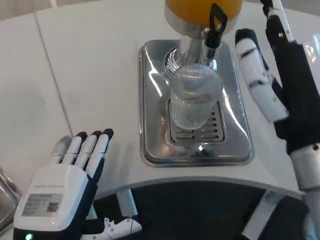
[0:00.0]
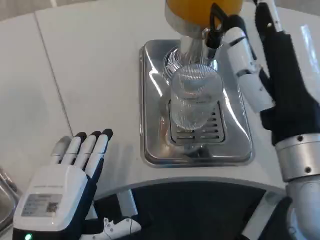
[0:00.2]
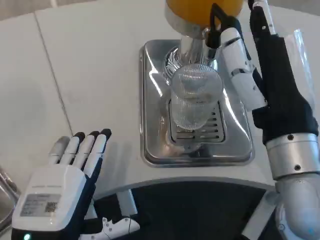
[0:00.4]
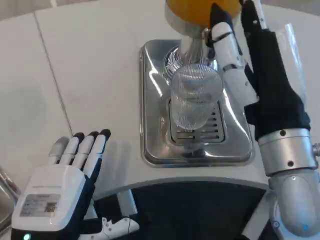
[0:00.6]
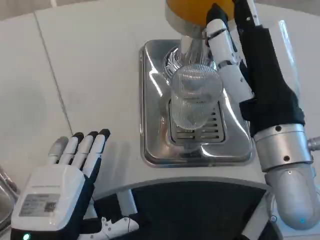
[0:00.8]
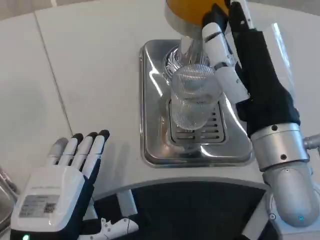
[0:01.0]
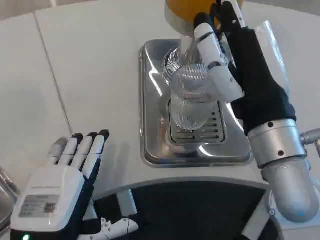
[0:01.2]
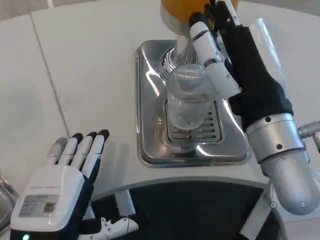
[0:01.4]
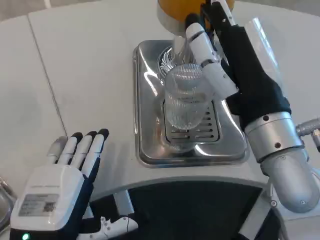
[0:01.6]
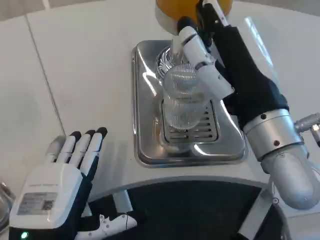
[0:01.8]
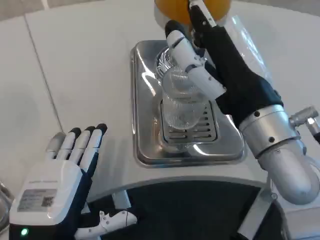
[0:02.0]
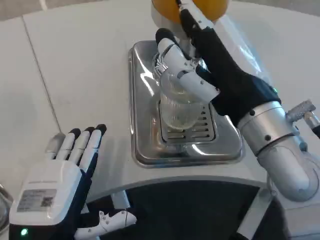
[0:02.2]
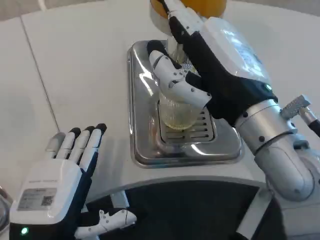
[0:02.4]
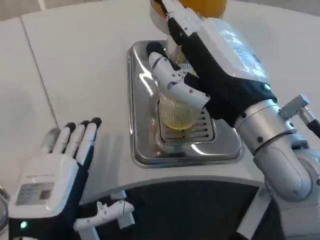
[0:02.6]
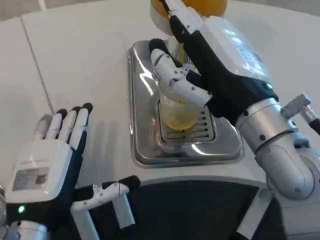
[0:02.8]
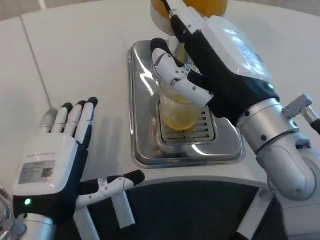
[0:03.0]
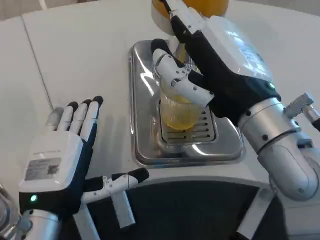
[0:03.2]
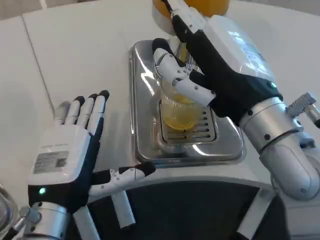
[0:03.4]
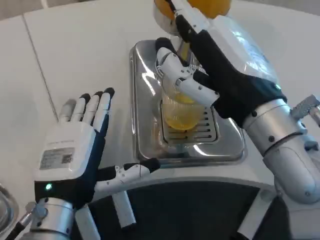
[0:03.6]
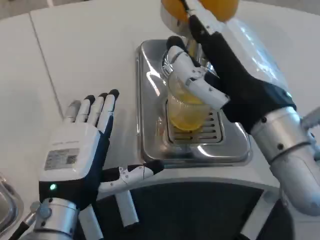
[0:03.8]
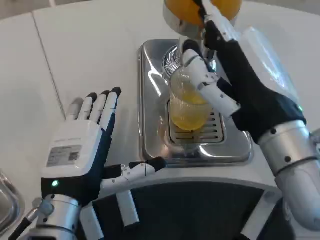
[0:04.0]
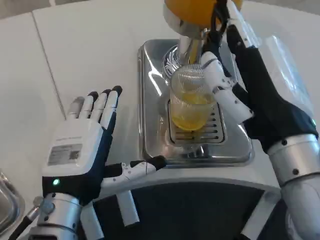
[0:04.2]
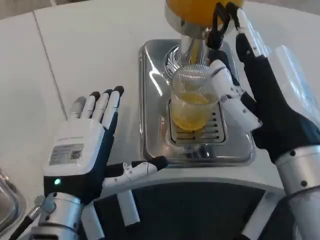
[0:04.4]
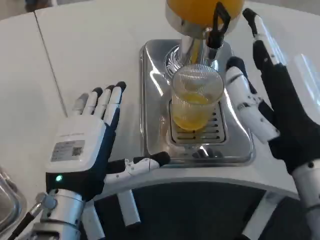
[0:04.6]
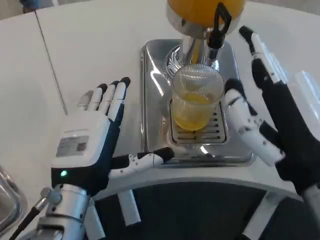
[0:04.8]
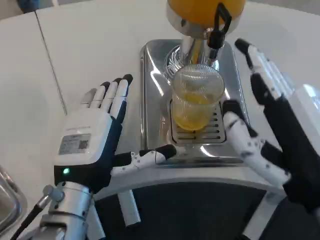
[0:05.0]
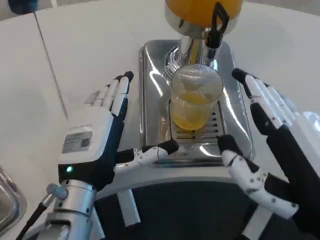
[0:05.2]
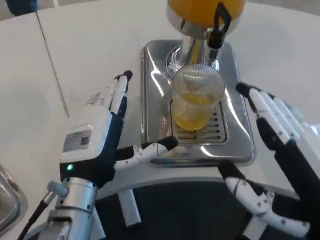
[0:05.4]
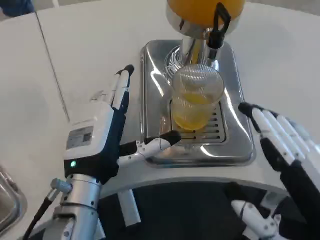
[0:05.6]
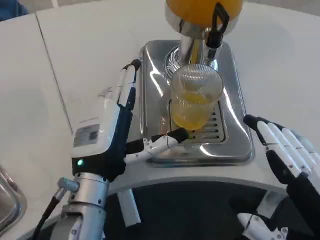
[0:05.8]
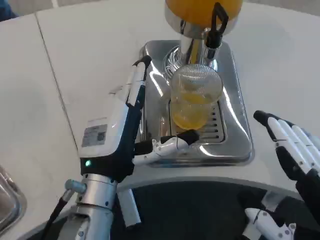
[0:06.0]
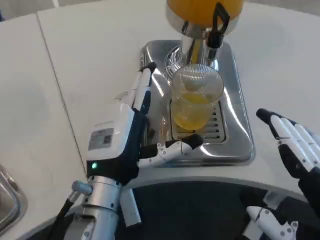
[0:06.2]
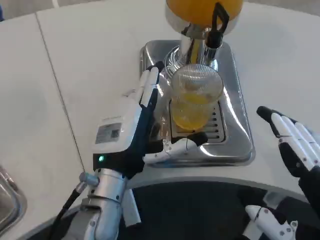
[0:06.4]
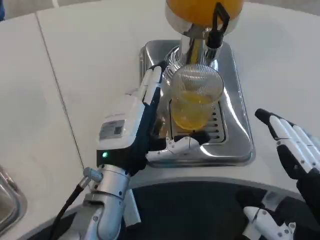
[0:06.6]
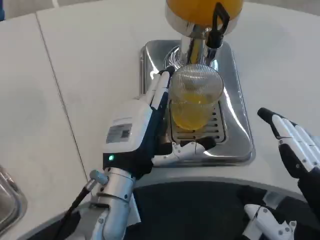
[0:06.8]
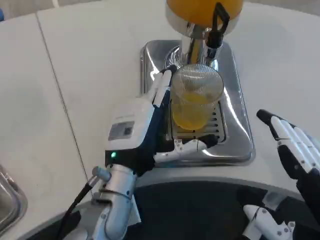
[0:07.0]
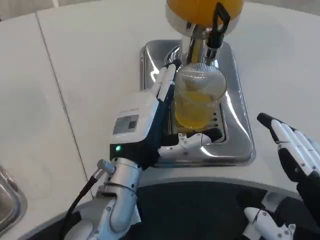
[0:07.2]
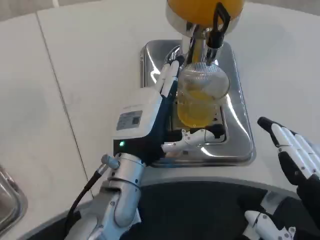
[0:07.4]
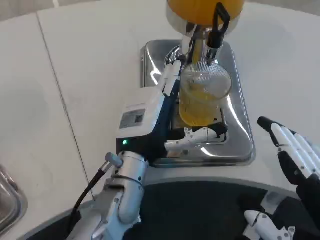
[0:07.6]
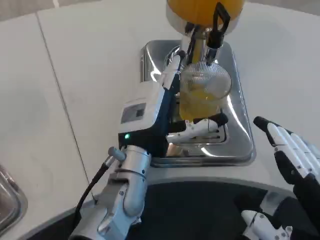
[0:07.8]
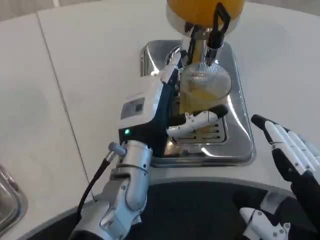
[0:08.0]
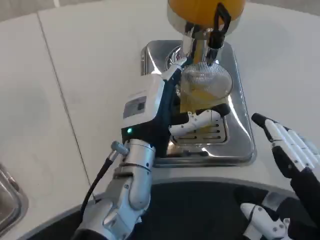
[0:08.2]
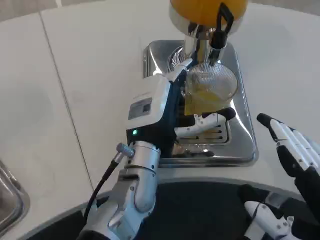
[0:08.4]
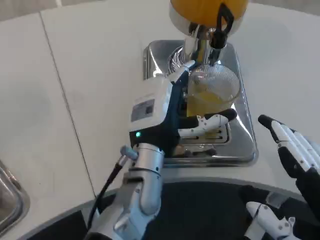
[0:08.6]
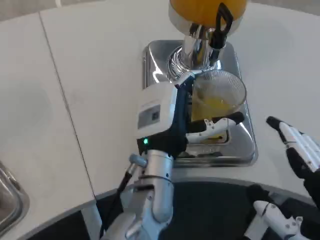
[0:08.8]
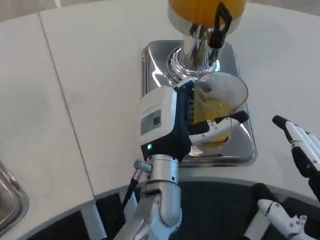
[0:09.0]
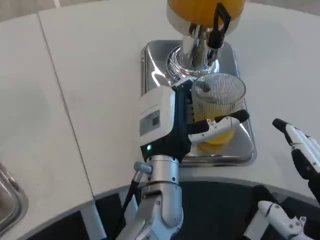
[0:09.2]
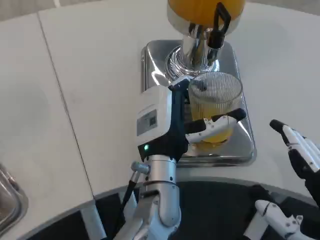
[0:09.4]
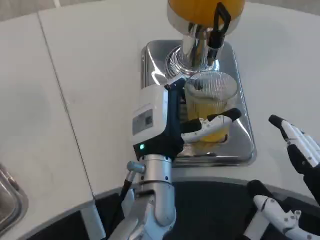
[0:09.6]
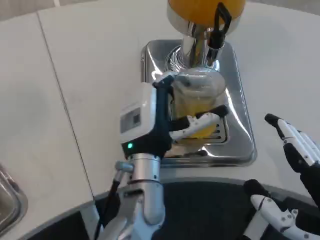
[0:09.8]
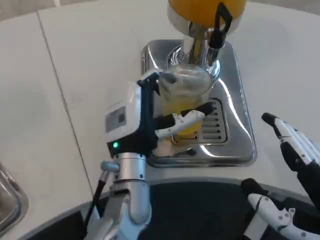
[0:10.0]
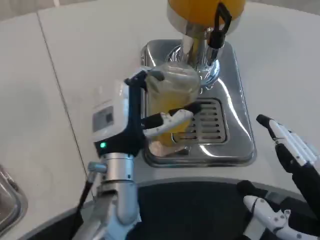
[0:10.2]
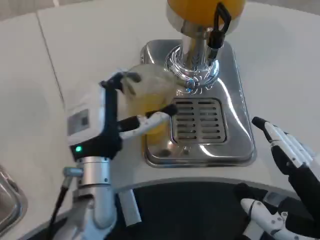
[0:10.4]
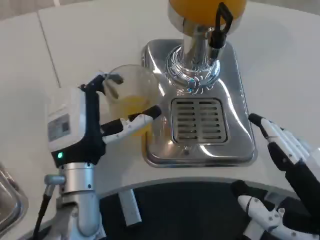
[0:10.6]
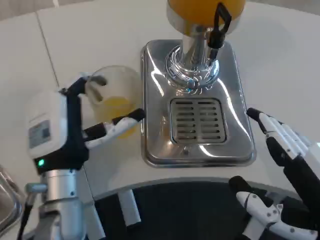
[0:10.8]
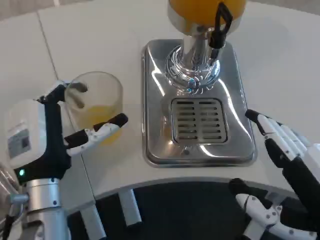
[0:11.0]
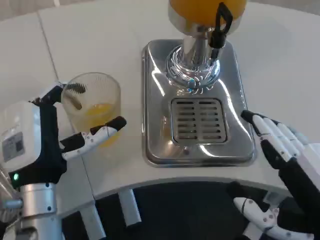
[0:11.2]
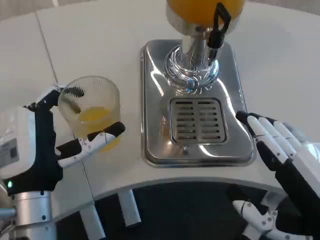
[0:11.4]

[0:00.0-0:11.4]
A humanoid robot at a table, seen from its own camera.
Task of the whole recording: Grasp the cup under the faucet to collect the drink, then remove the cup.
0:04.2 to 0:05.6: The right hand shifts some 10 cm backward and to the right.
0:05.6 to 0:07.2: The left hand moves some 5 cm.
0:10.0 to 0:11.4: The left hand is displaced to the left and backward by approximately 15 cm.

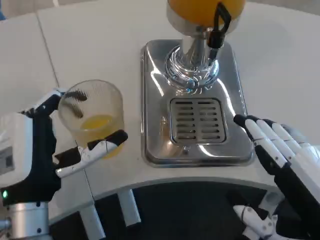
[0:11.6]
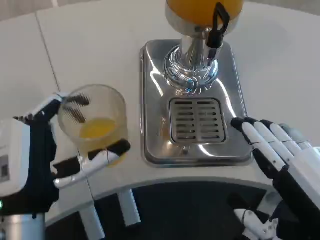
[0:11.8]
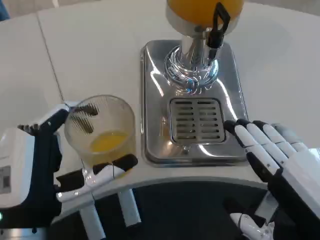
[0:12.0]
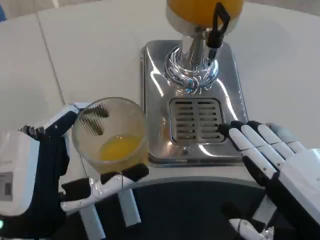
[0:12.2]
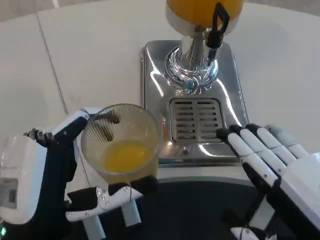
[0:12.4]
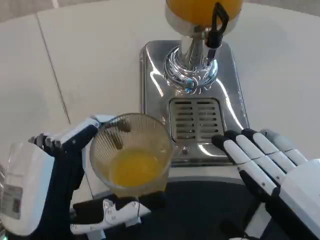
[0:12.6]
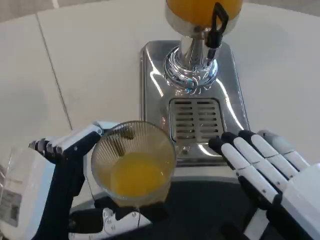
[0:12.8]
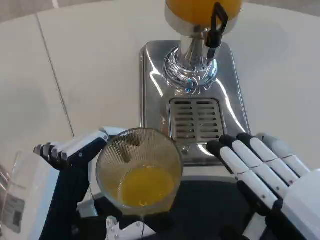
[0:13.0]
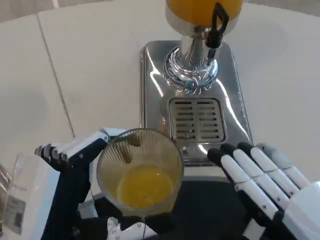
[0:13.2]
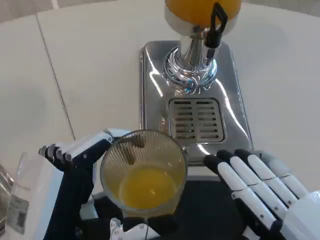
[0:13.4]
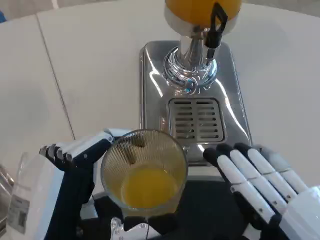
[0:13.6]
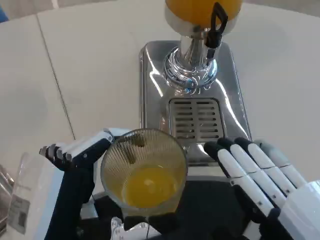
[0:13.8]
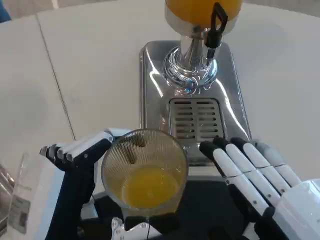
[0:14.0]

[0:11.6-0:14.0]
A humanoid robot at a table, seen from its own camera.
Task of the whole recording: Grasp the cup under the faucet to collect the drink, then remove the cup.
0:11.6 to 0:12.8: The left hand goes roughly 10 cm backward.
0:12.8 to 0:14.0: The hands stay close to where they were, moving slightly.

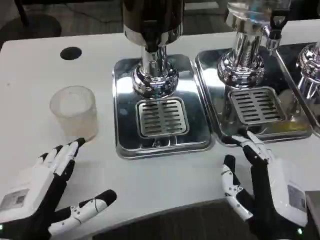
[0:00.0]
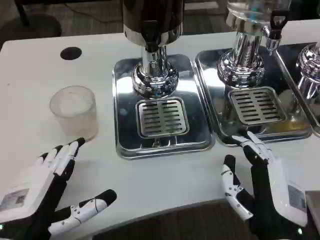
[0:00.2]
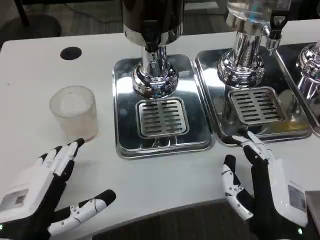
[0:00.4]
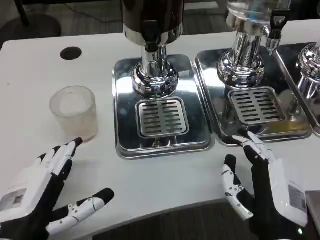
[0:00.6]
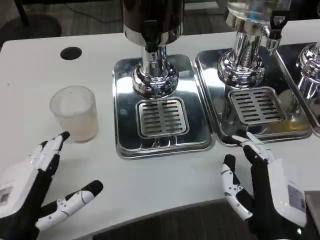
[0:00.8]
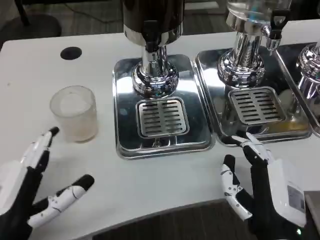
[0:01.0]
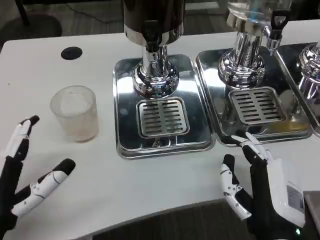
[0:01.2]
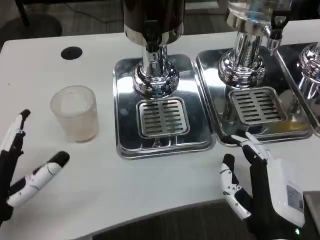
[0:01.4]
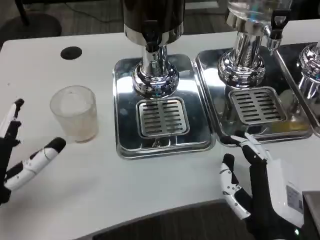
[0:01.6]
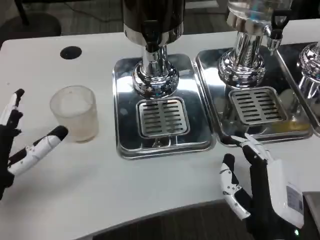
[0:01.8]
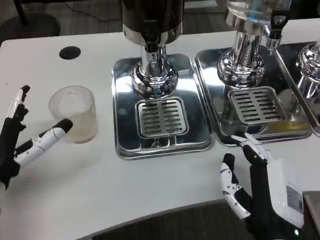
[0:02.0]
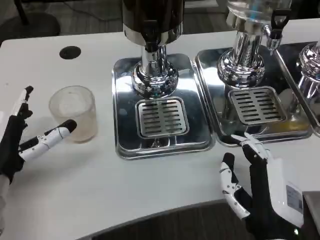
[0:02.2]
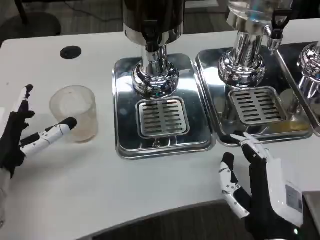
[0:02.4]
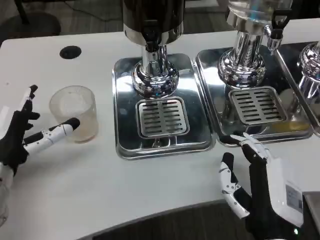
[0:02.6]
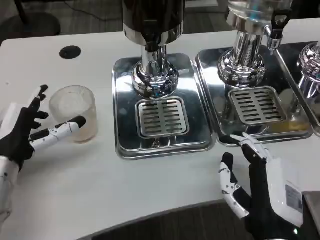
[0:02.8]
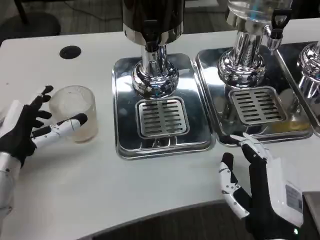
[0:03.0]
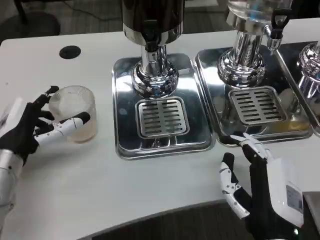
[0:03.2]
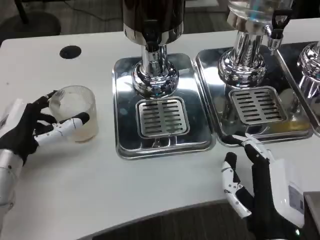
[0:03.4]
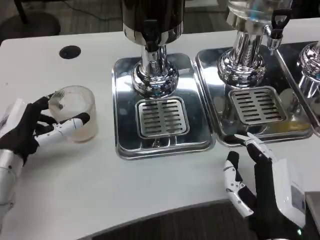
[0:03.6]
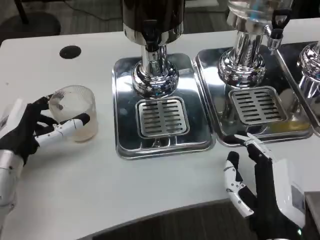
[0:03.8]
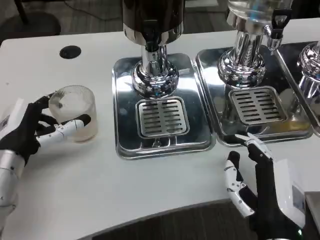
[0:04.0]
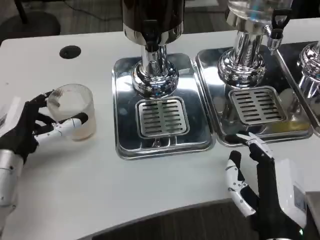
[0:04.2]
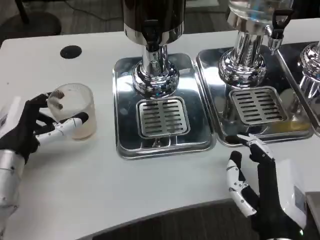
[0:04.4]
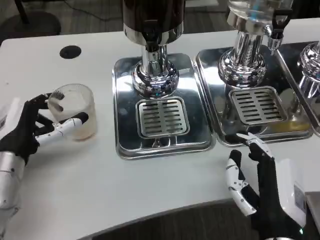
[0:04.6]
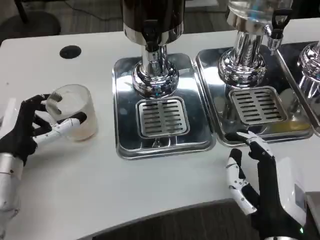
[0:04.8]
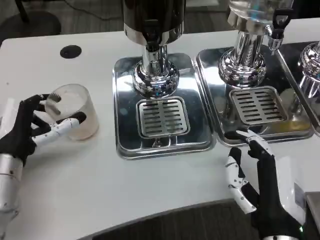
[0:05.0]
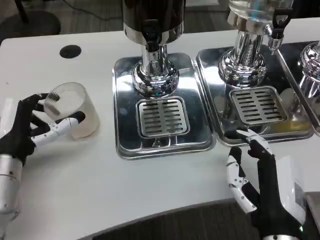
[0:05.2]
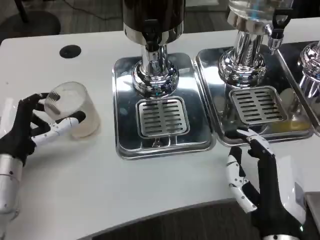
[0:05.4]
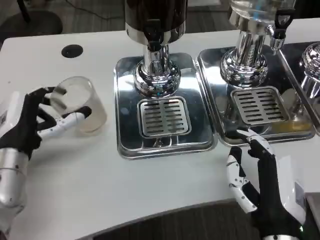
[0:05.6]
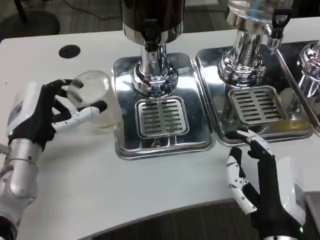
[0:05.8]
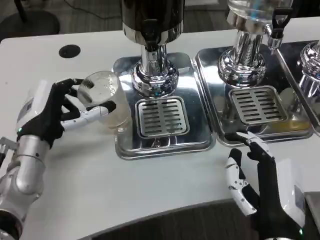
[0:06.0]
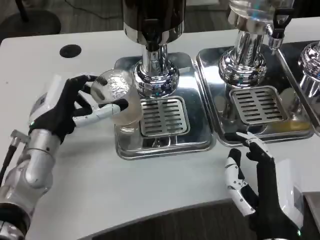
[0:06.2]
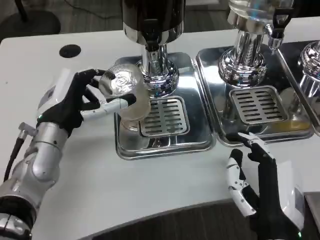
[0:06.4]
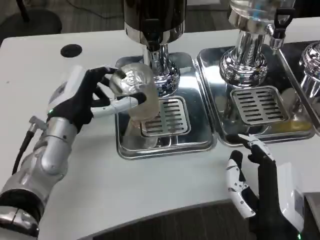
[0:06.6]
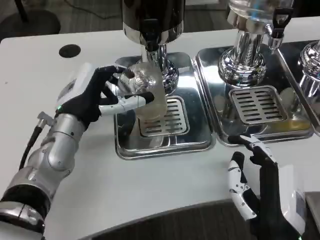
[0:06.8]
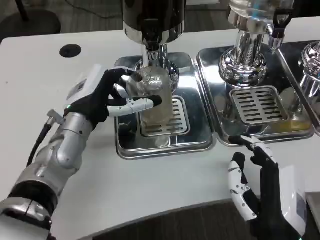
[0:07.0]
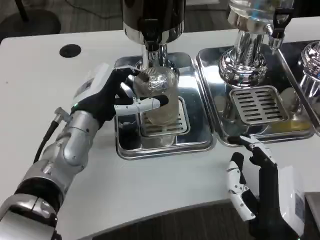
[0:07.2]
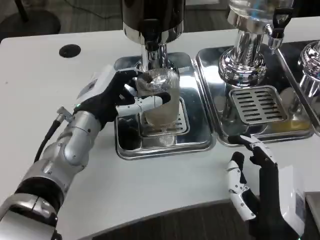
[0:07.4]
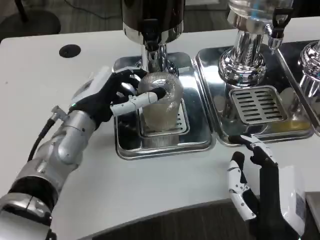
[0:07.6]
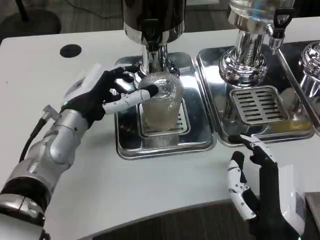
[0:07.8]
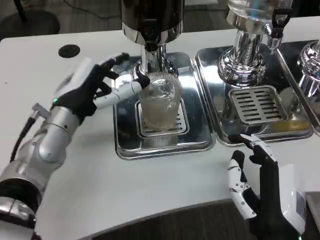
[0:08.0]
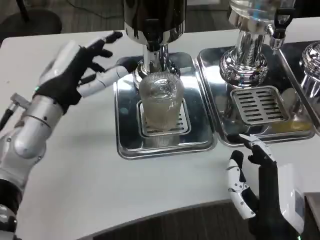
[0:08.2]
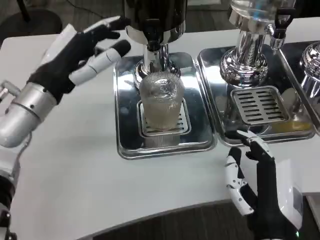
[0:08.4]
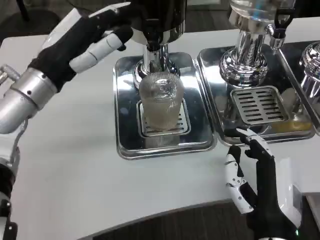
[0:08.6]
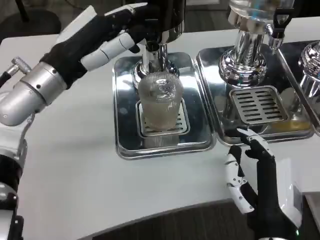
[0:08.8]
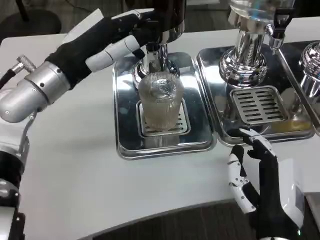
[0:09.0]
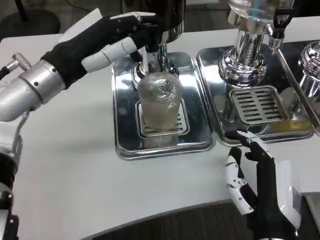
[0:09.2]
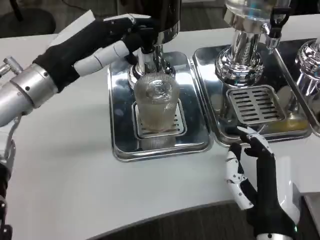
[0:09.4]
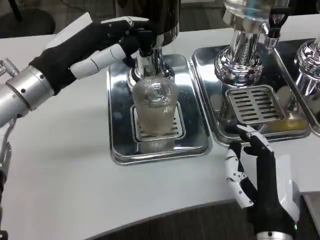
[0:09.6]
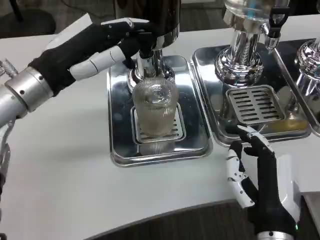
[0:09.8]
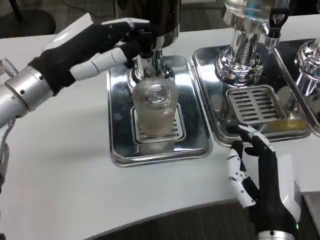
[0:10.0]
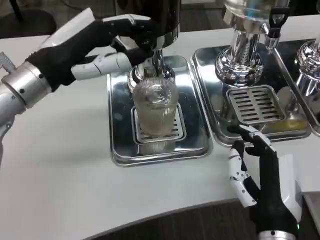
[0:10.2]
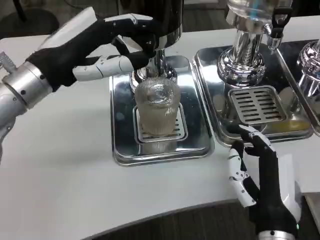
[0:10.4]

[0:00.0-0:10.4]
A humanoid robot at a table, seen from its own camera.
Task of the whole recording: Grasp the cup under the faucet to collect the drink, then remove the cup.
0:00.0 to 0:01.4: The hands make only small movements.
0:01.4 to 0:03.0: The left hand heads forward, covering roughly 10 cm.
0:03.0 to 0:04.4: The hands stay close to where they were, moving slightly.
0:06.0 to 0:07.4: The left hand is displaced to the right by some 5 cm.
0:07.4 to 0:09.0: The left hand goes approximately 10 cm upward and to the left.
